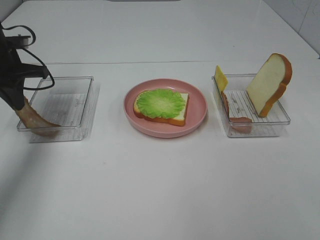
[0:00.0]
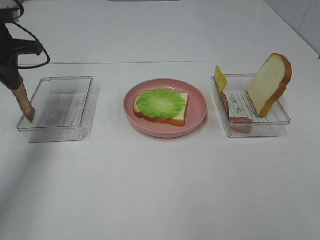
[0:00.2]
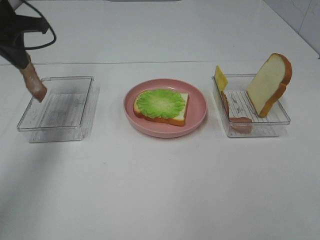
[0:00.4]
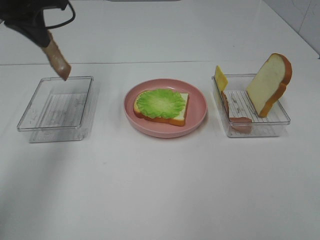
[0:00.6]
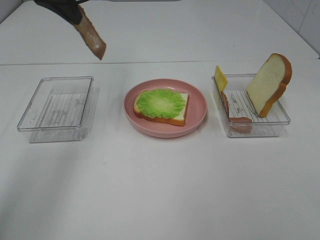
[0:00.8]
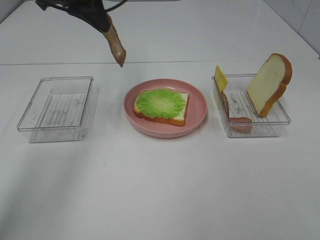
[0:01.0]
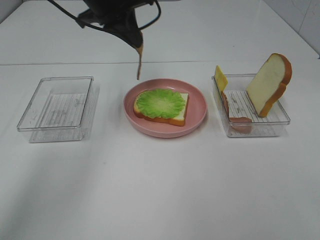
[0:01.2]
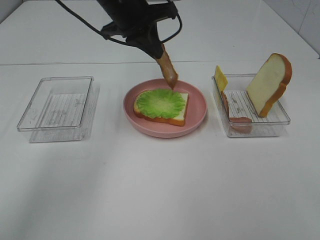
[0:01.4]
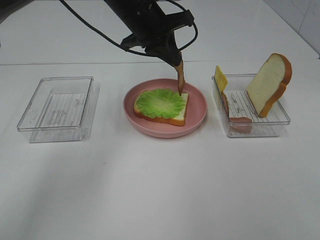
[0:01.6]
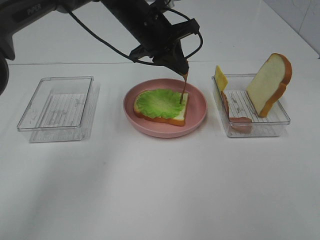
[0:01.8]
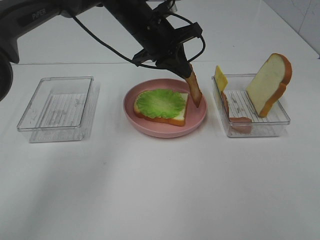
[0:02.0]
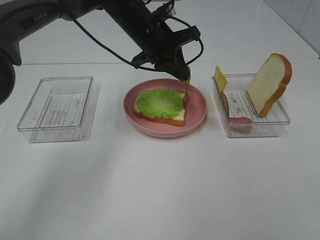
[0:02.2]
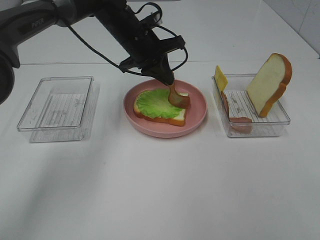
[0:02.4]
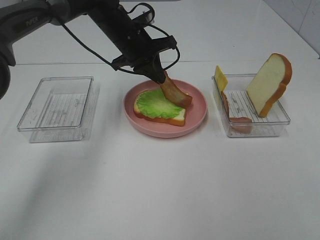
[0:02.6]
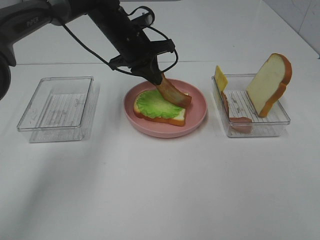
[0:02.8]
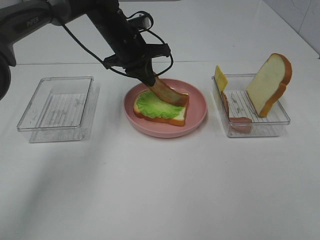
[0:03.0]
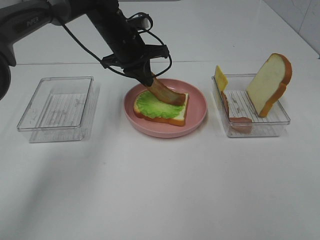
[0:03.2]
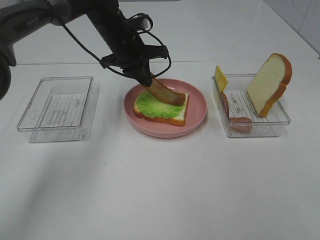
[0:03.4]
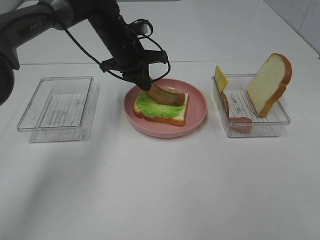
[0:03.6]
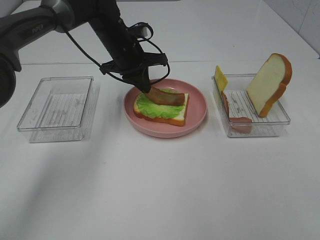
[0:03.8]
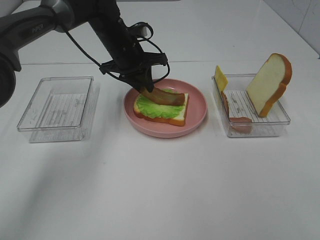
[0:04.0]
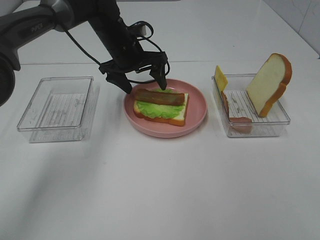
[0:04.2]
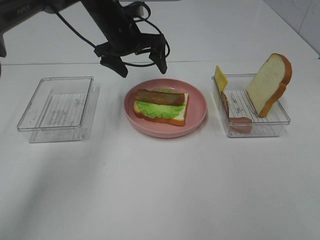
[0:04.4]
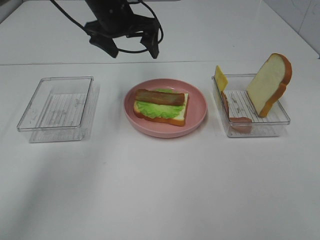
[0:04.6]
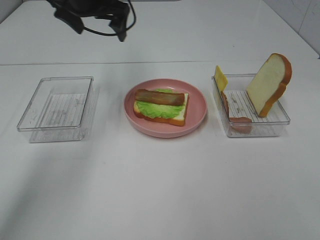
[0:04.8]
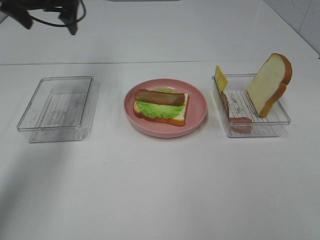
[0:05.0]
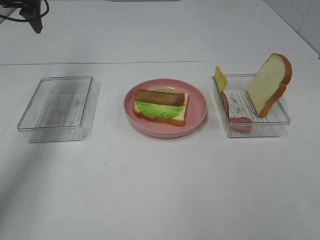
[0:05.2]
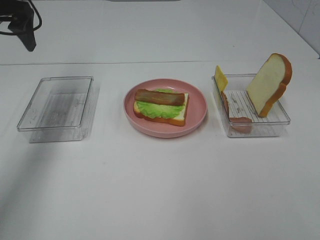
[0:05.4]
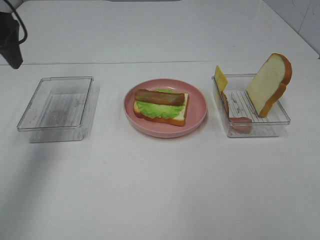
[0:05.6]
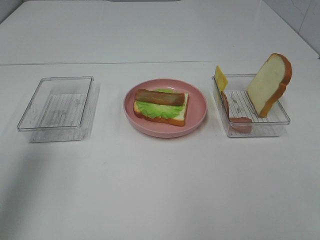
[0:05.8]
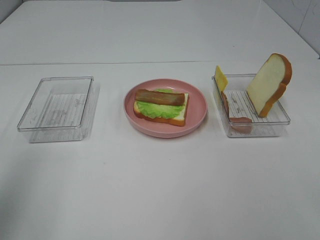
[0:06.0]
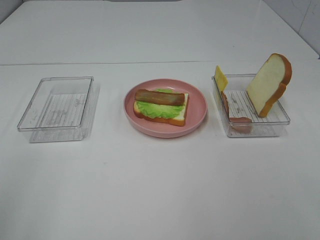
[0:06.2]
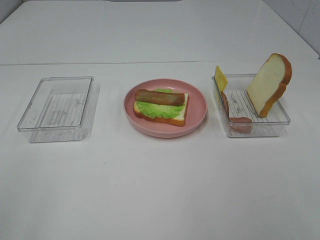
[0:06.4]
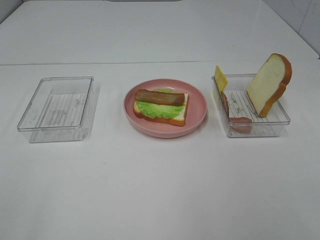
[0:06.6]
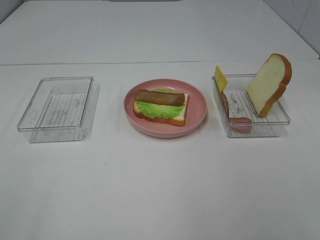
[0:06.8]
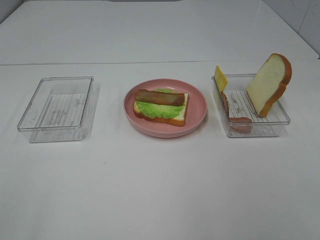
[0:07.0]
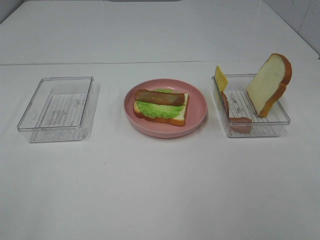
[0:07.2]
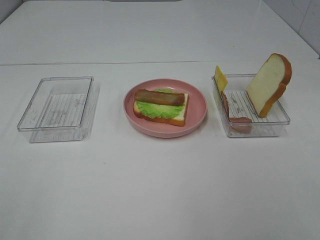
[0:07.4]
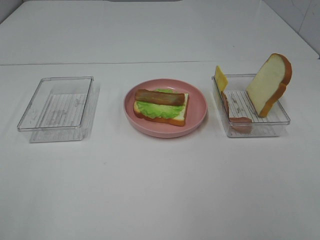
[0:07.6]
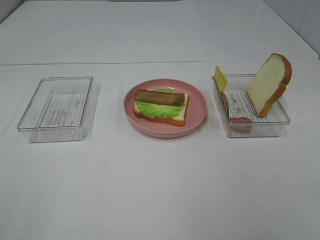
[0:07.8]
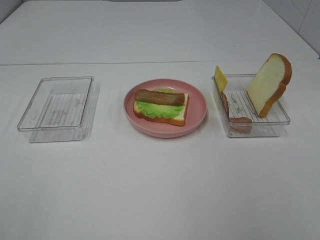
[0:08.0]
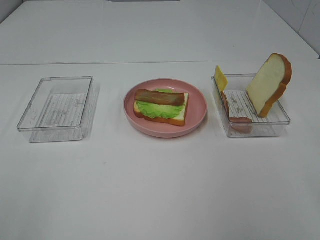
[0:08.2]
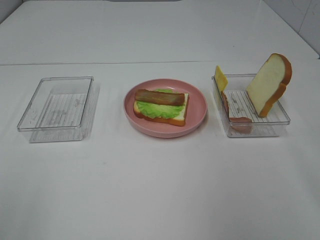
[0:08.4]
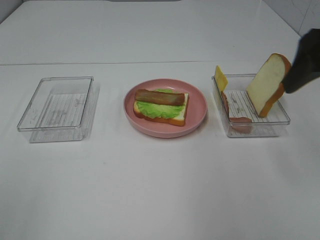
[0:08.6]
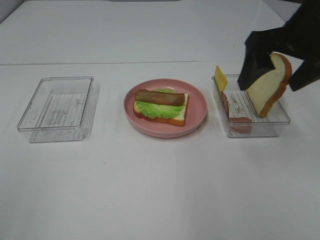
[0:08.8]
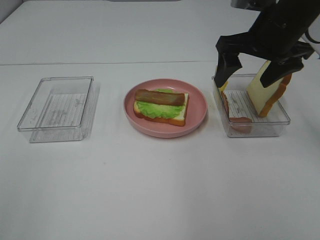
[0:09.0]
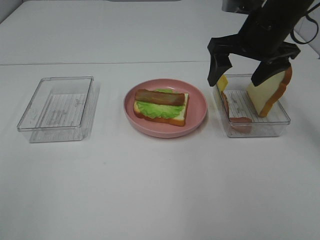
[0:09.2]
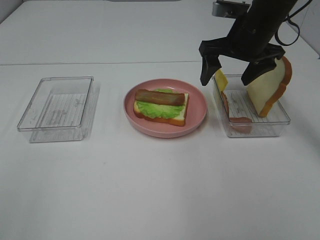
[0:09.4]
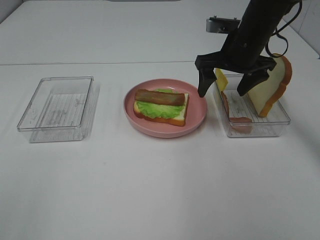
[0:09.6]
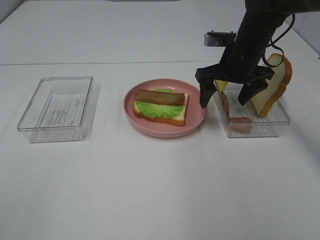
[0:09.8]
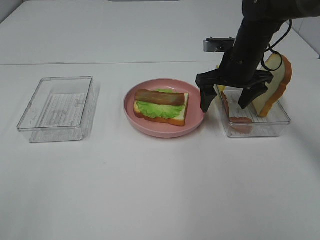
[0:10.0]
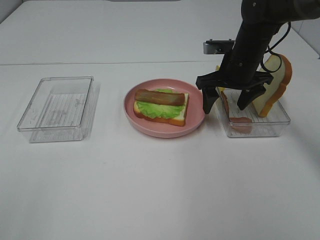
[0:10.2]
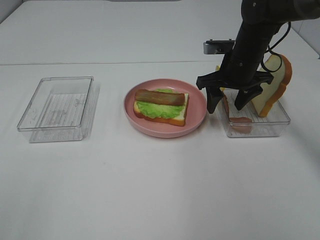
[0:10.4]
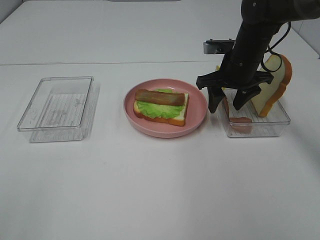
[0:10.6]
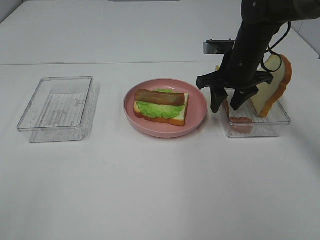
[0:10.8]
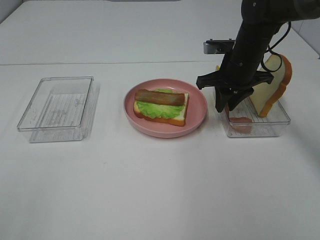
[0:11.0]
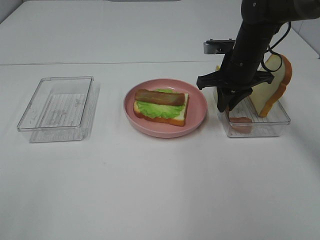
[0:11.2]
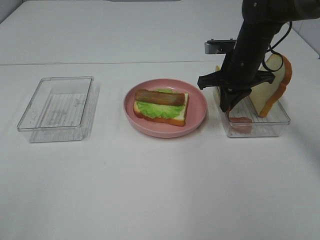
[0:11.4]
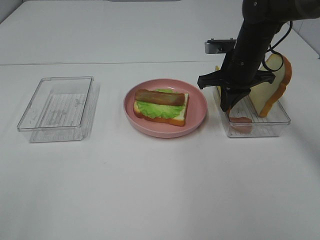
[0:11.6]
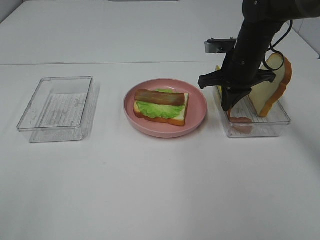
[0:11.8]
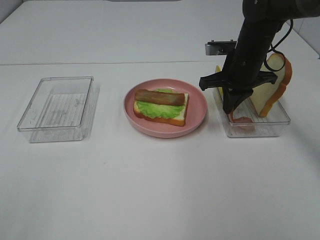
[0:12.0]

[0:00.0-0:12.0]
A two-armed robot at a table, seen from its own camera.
Task of the whole recording: Make sandwiches.
Step, 0:00.2 to 0:04.4: Left hand:place bacon on lettuce slice.
Step, 0:04.6 to 0:11.6: Right hand:grab the bacon.
0:00.0 to 0:01.6: The left gripper is displaced to the right by approximately 25 cm.
0:01.6 to 0:03.0: The left gripper is displaced downward by some 5 cm.
0:03.0 to 0:04.4: The left gripper opens up.
0:04.4 to 0:06.0: The left gripper moves backward and to the left, about 40 cm.
0:06.0 to 0:07.6: The left gripper moves backward, about 15 cm.
0:07.6 to 0:09.0: The right gripper shifts roughly 35 cm forward.
0:09.0 to 0:10.4: The right gripper moves downward and forward, roughly 15 cm.
0:10.4 to 0:12.0: The right gripper closes its fingers.

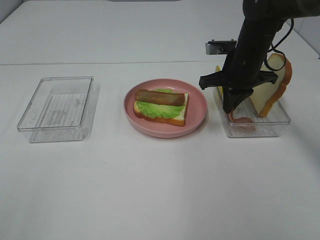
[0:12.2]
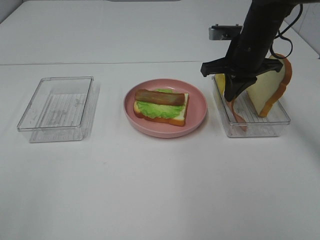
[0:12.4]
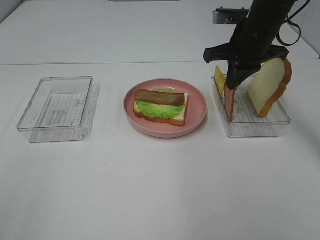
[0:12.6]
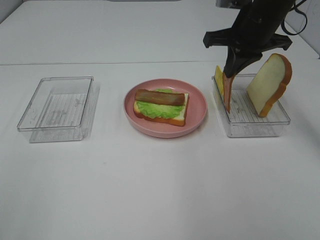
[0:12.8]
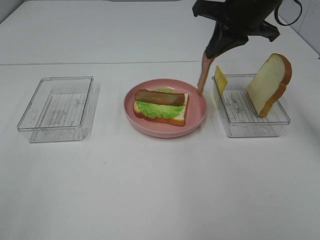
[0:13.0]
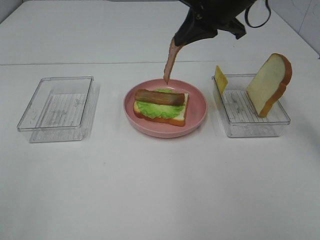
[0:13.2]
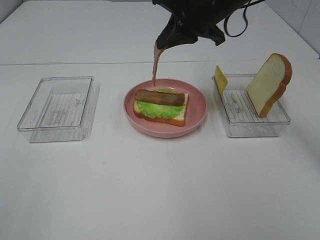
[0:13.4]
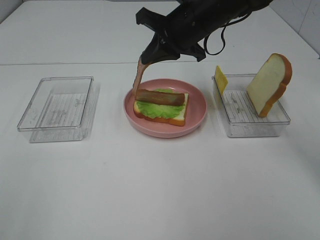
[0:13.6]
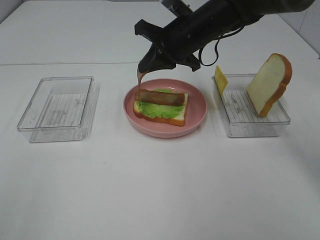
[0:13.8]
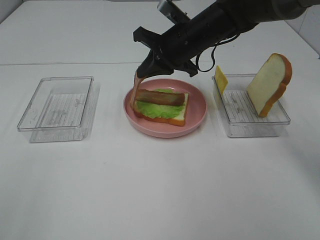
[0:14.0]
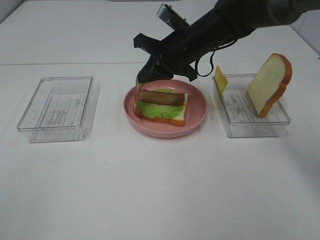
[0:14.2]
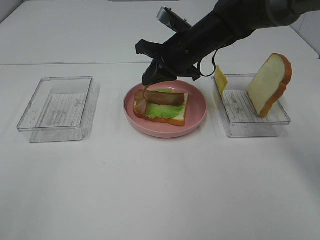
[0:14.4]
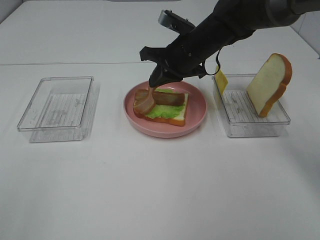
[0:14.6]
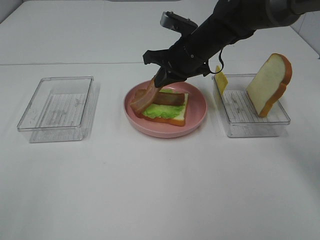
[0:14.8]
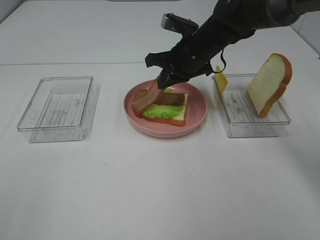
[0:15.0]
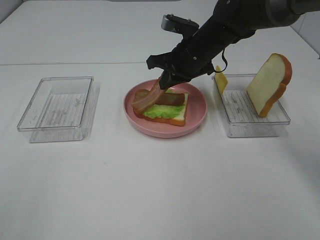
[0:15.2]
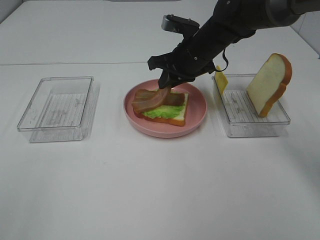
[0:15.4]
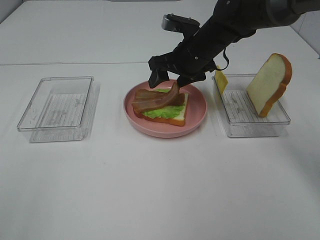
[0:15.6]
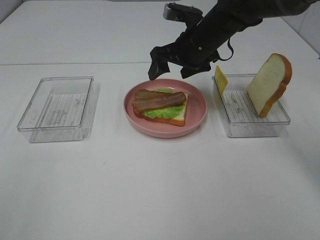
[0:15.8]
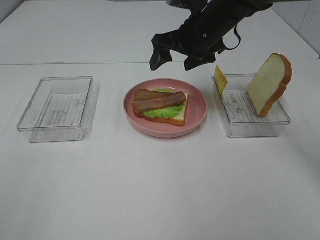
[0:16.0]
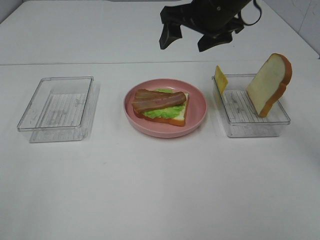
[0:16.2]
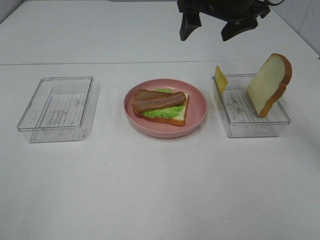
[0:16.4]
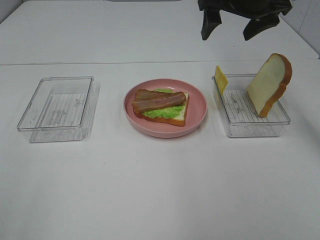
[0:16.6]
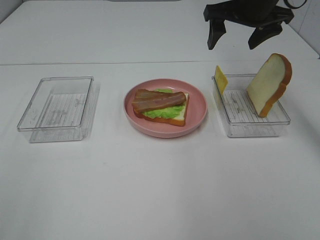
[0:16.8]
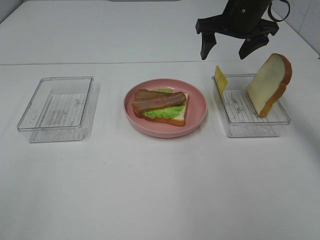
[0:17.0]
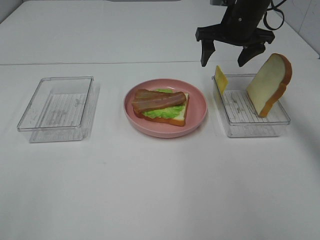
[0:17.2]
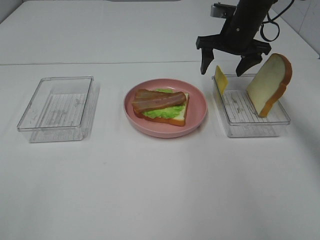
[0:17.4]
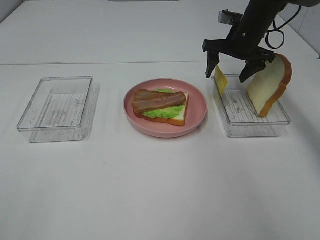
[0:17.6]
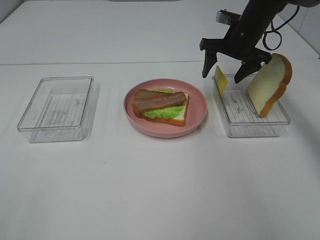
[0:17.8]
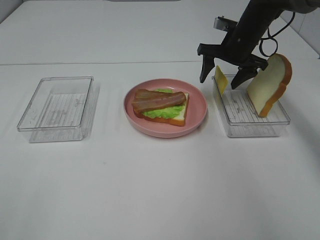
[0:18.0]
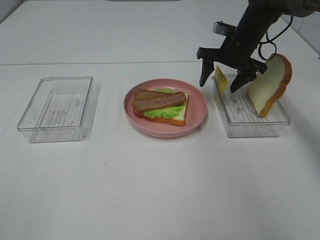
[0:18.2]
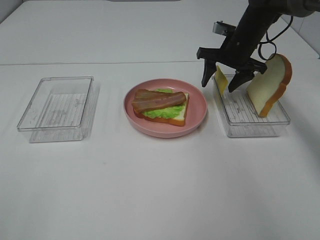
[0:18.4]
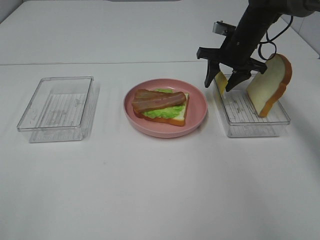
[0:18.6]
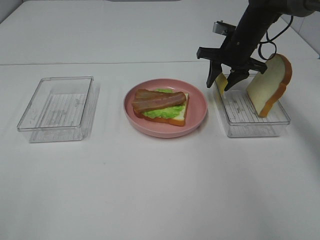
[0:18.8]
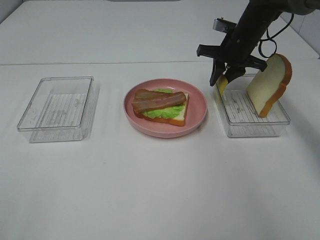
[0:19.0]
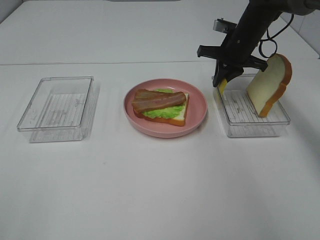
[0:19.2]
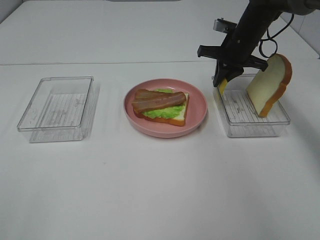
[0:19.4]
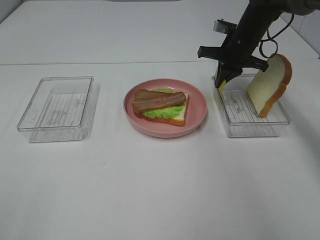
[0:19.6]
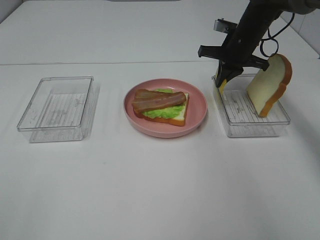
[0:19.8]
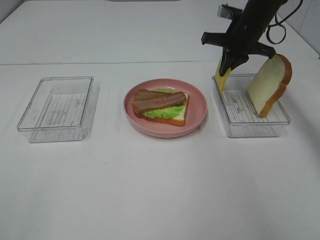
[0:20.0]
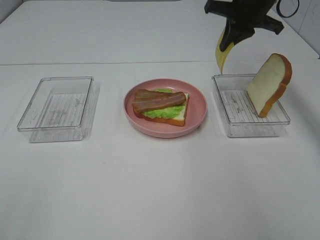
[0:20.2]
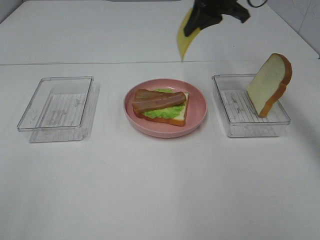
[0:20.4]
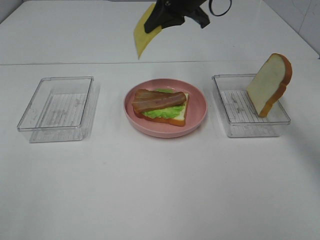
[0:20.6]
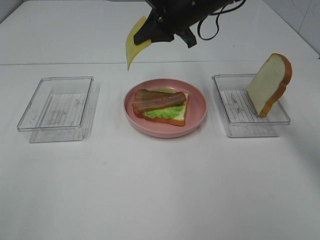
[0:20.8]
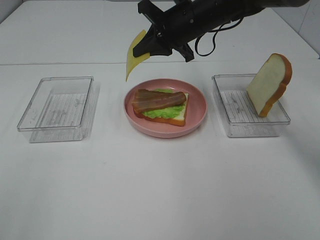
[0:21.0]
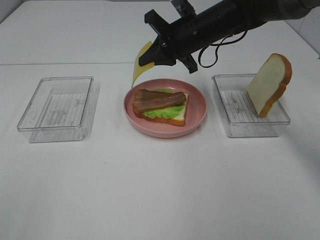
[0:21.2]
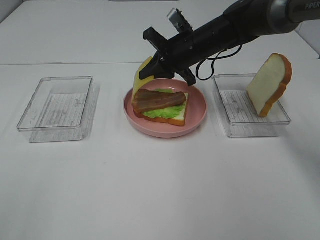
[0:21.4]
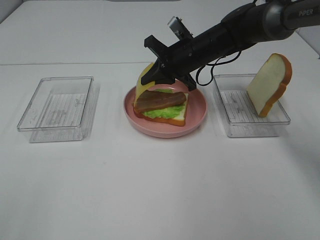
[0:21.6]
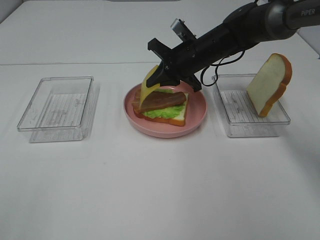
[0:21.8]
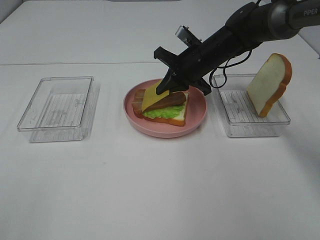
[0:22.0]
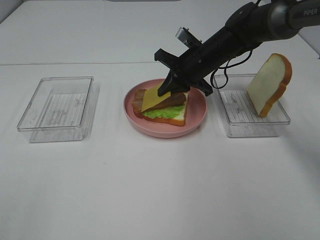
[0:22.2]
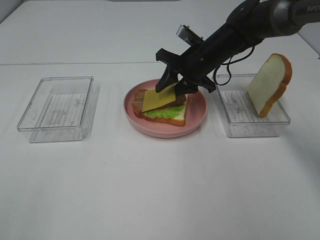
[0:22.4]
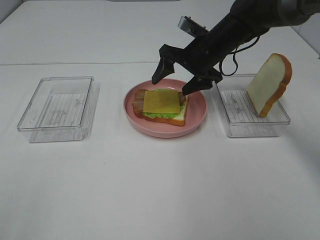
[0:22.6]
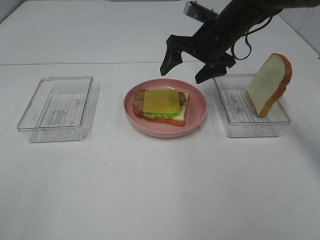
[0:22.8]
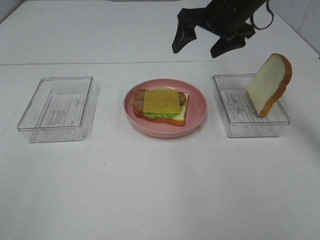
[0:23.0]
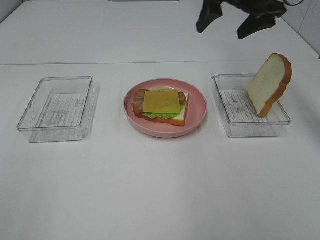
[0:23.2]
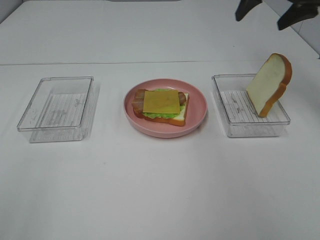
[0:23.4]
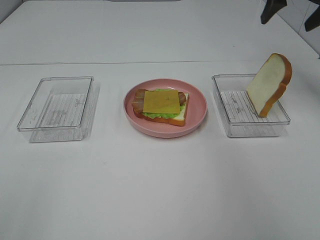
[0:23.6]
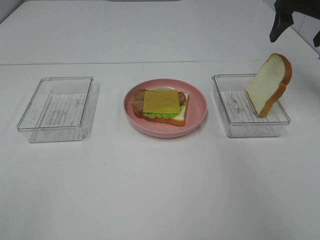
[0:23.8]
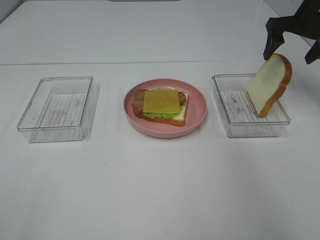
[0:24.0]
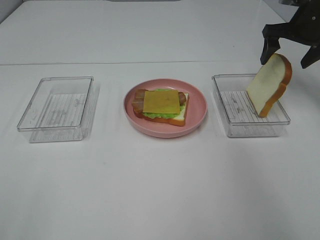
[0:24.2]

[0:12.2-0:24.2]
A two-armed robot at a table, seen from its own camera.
Task of the whole recording: Make sandwiches.
Step, 0:12.2 to 0:15.8: Right hand:place bacon on bacon.
Step, 0:16.0 to 0:19.4: Right hand:grab the cheese slice.
Step, 0:19.6 to 0:22.6: Right hand:place the cheese slice on top of the bacon.
0:12.2 to 0:13.8: The right gripper moves to the left, approximately 10 cm, and moves some 10 cm upward and comes back.
0:13.8 to 0:15.2: The grippers move only a little.
0:15.2 to 0:16.6: The right gripper is displaced upward and to the right by roughly 15 cm, and opens.
0:16.6 to 0:18.2: The right gripper is displaced downward and forward by about 15 cm.
0:18.2 to 0:19.8: The right gripper closes up.
0:19.8 to 0:21.2: The right gripper heads to the left and backward, covering about 10 cm, and reaches roughly 10 cm upward, then returns.
0:21.2 to 0:22.6: The right gripper opens its fingers.
0:22.6 to 0:24.2: The right gripper shifts roughly 20 cm to the right.
